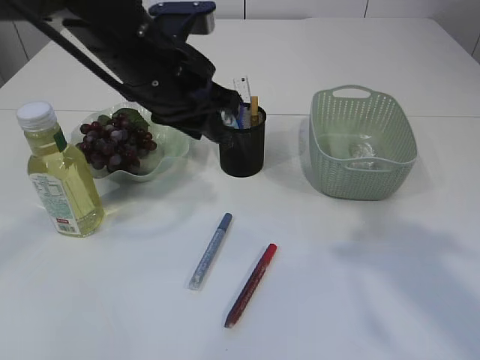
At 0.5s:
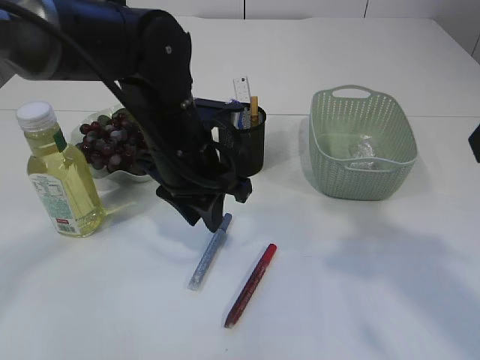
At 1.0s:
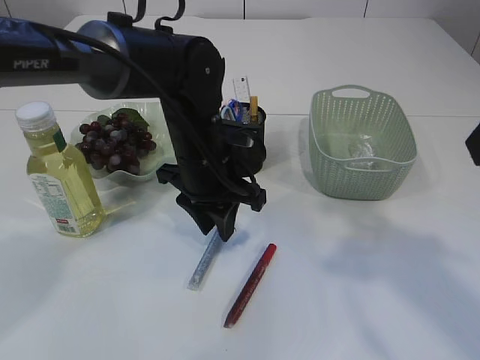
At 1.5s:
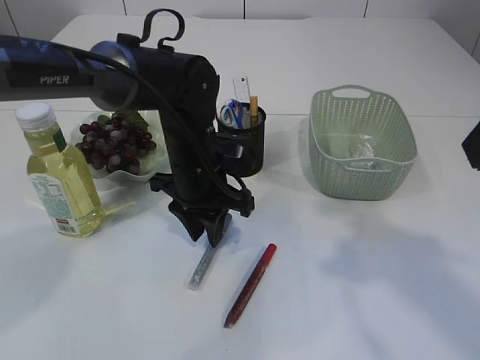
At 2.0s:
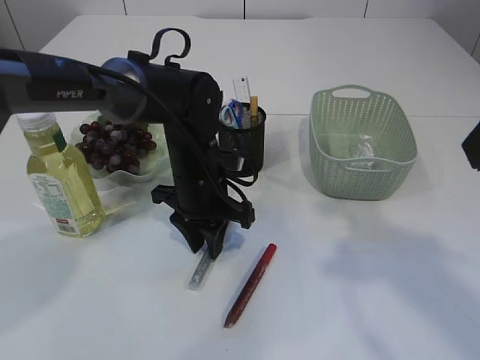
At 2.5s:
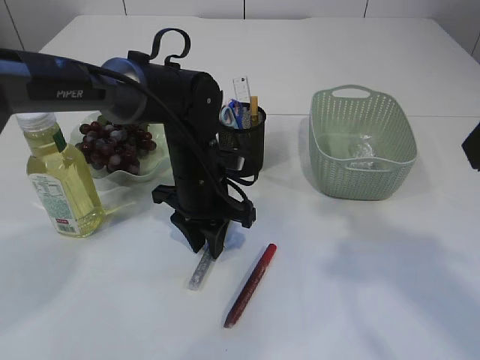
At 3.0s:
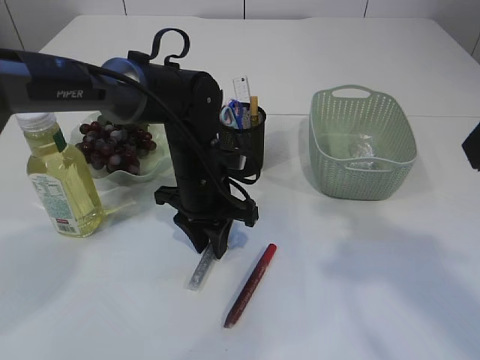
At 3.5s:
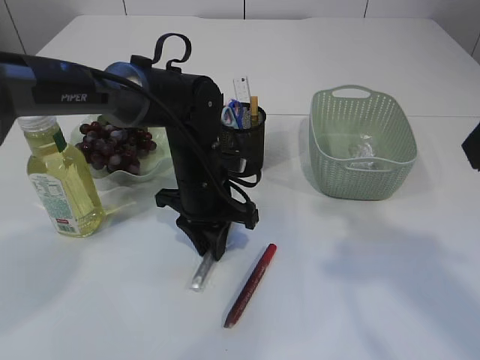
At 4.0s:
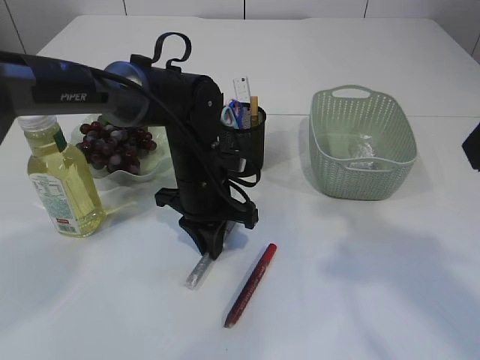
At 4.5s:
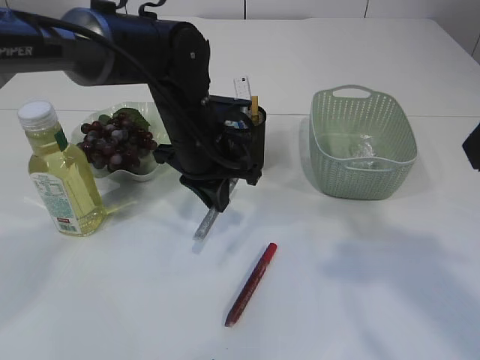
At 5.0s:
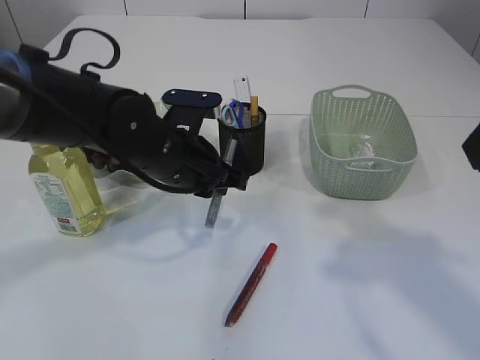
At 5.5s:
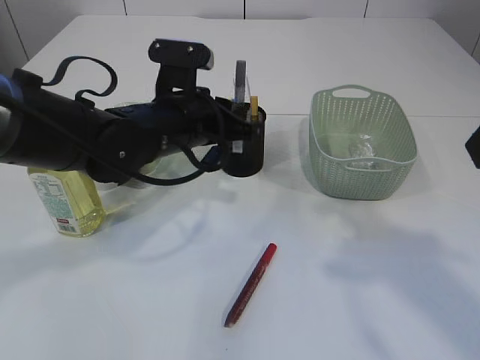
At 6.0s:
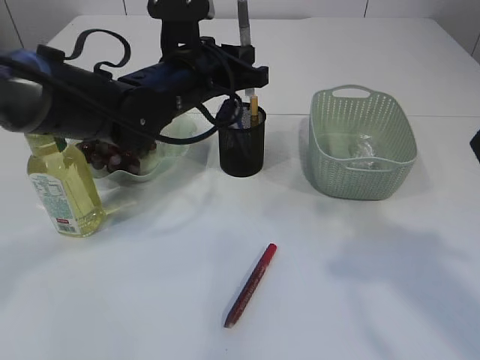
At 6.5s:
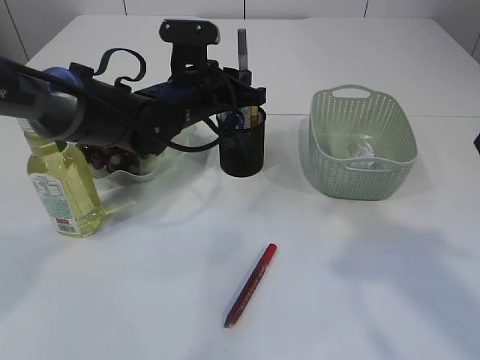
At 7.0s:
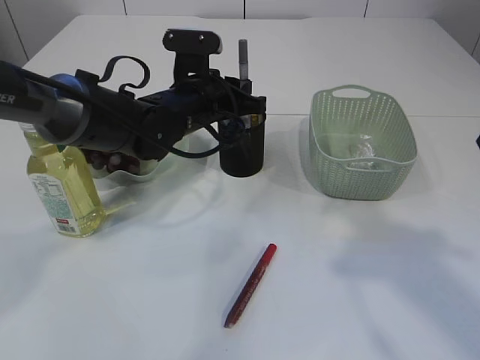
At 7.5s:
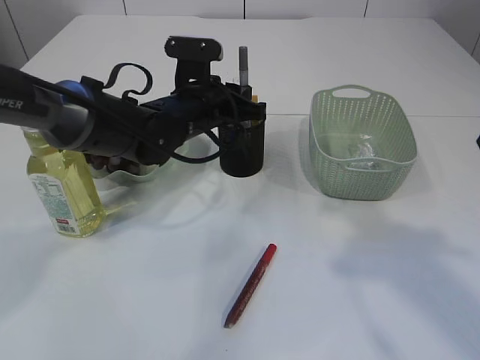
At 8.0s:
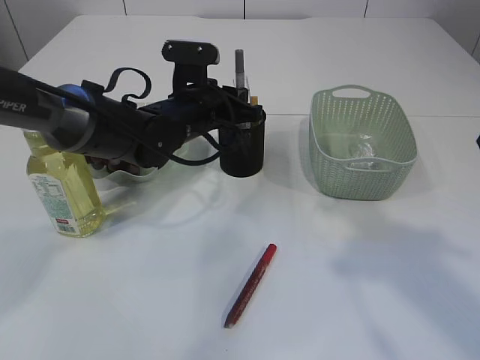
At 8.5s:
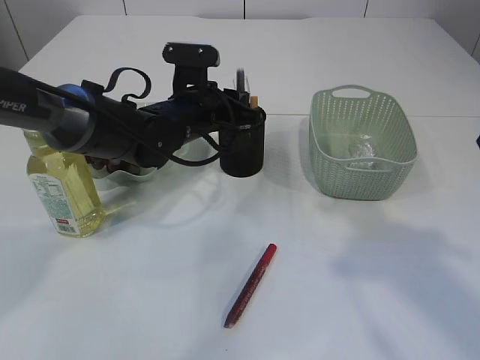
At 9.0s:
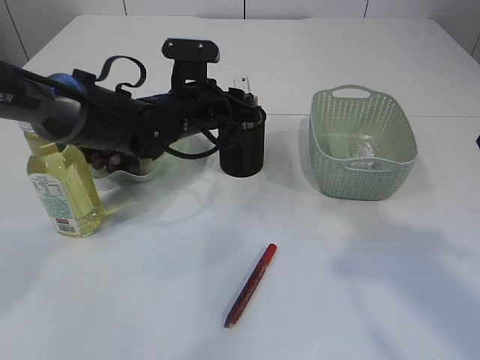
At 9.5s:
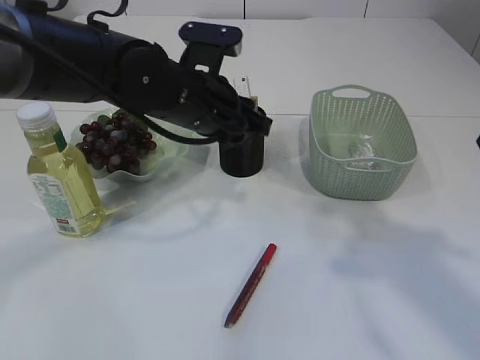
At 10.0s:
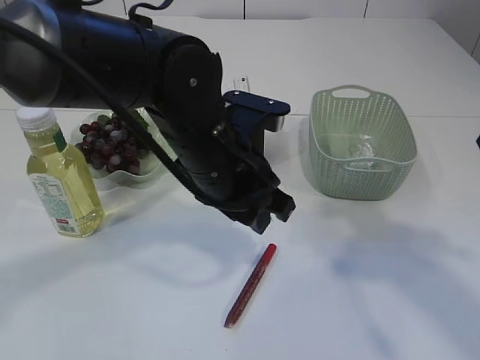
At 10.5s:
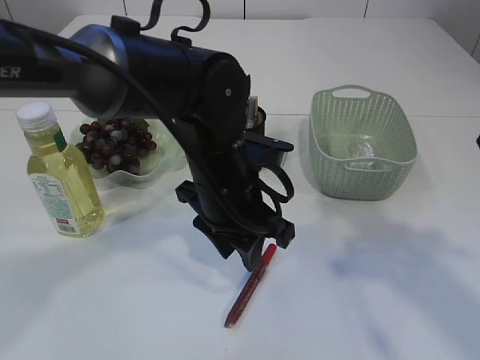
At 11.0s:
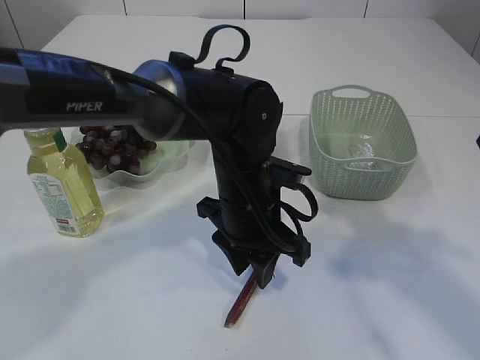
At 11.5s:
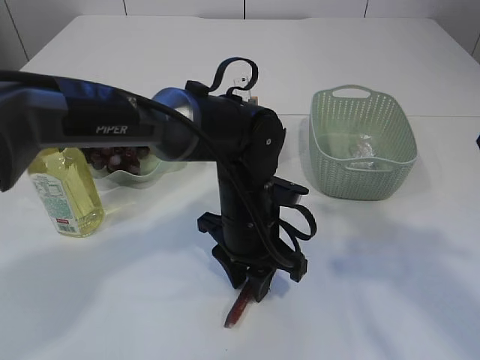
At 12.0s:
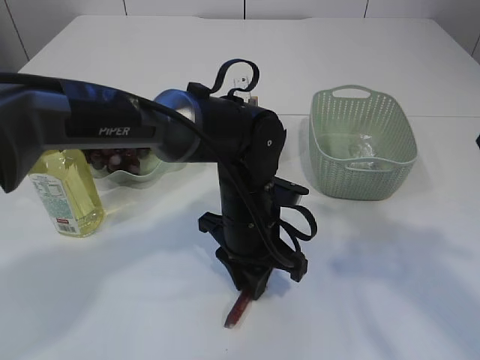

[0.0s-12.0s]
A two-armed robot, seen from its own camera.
Step, 0.0s to 4.0s: pick up the silver glue.
Step, 4.5s to 9.5s: place the silver glue into the pen holder.
0.0s to 2.0s: The left gripper is displaced downward by approximately 15 cm.
2.0s to 4.0s: The left gripper closes up.
4.0s to 6.0s: The left gripper travels upward by some 10 cm.
6.0s to 8.0s: The left gripper heads downward, covering roughly 5 cm.
8.0s to 10.0s: The left gripper heads backward, covering about 15 cm, and opens.
10.0s to 12.0s: The left gripper moves downward, some 10 cm.

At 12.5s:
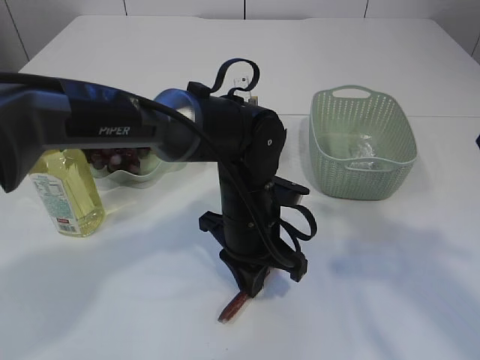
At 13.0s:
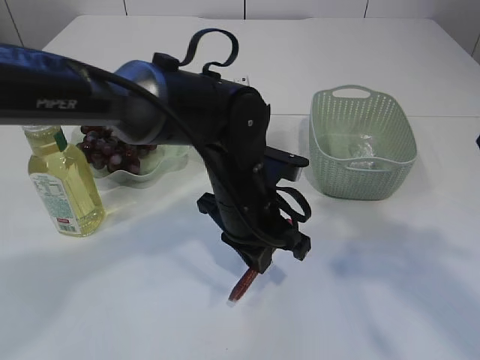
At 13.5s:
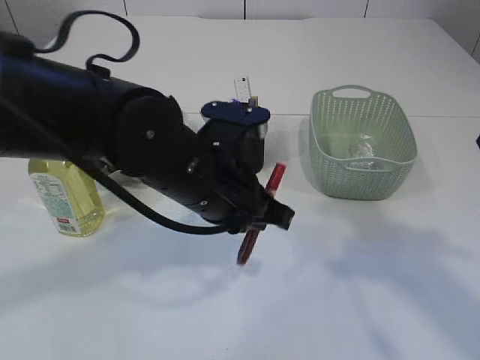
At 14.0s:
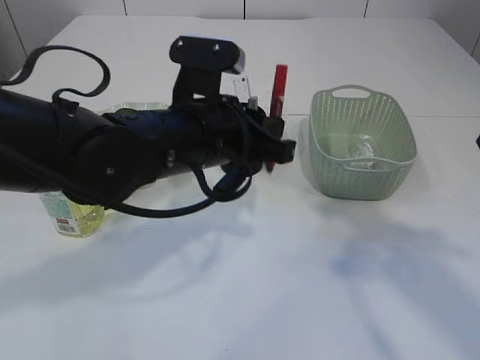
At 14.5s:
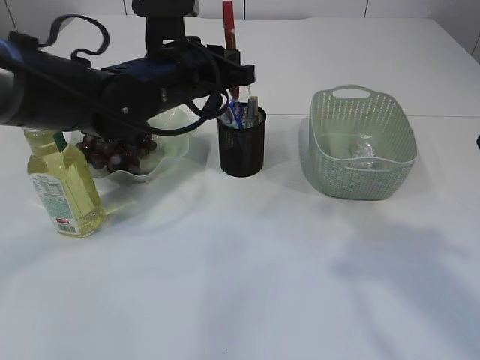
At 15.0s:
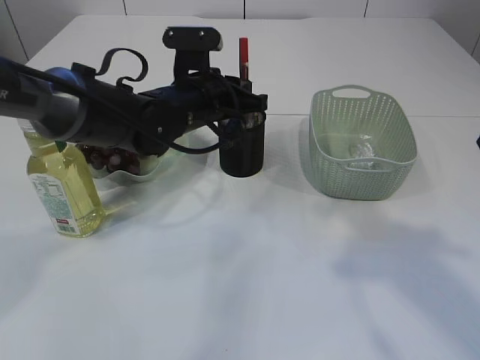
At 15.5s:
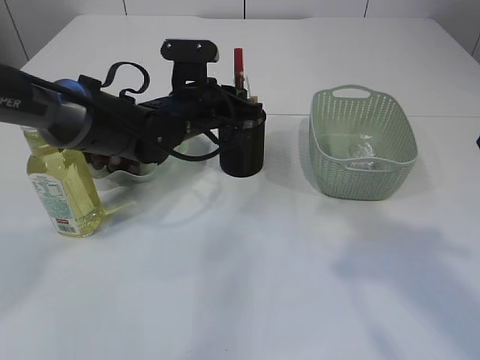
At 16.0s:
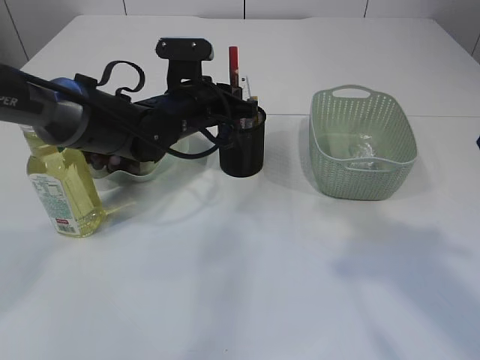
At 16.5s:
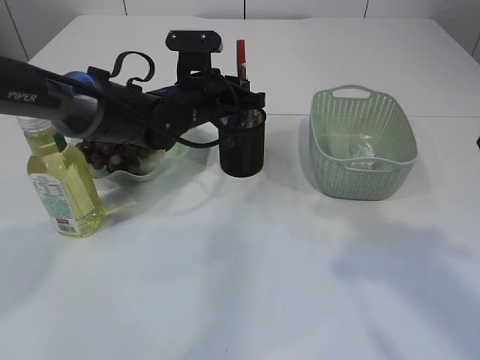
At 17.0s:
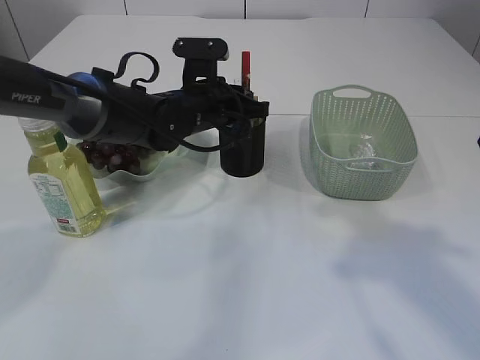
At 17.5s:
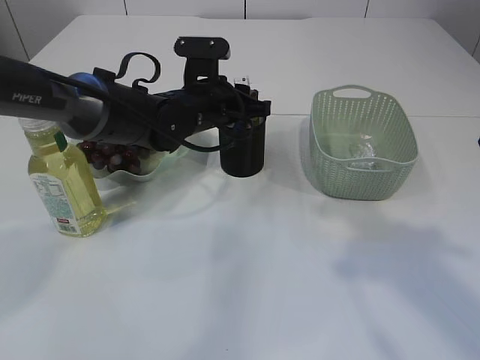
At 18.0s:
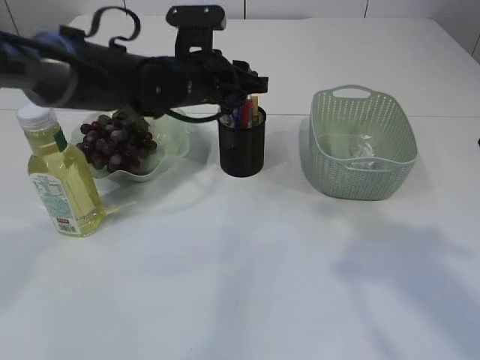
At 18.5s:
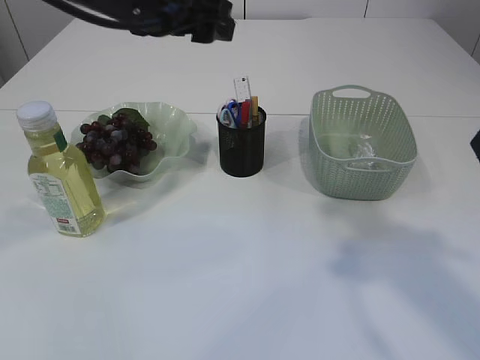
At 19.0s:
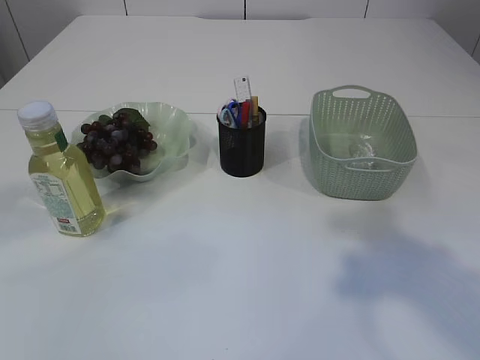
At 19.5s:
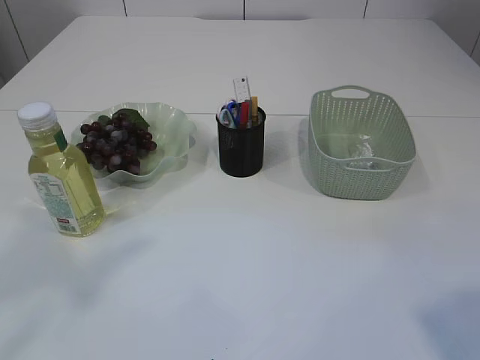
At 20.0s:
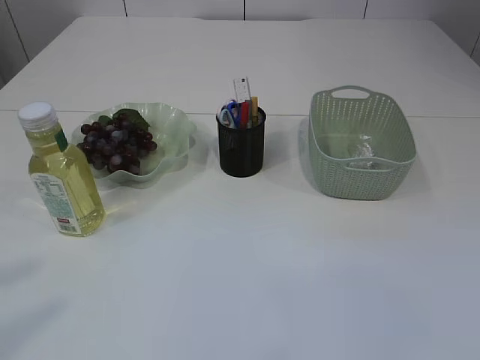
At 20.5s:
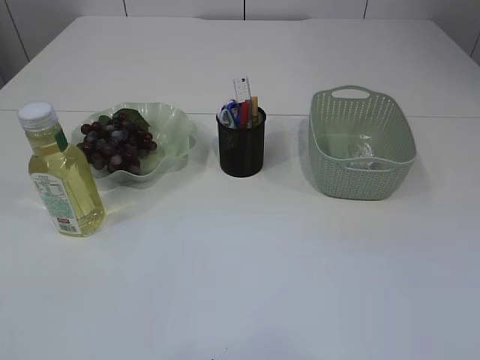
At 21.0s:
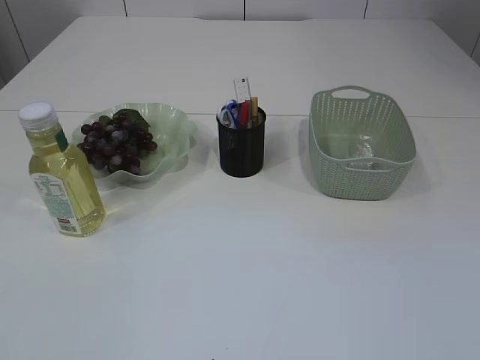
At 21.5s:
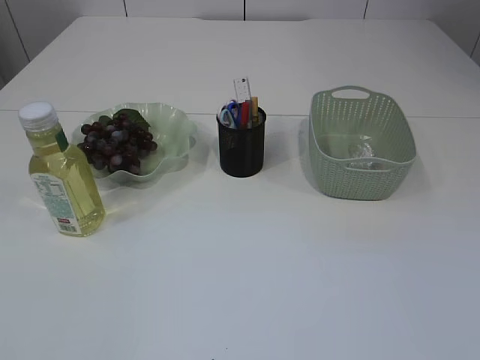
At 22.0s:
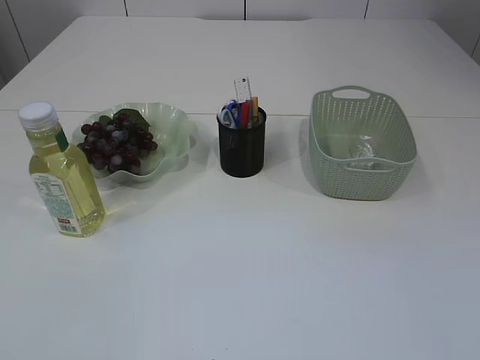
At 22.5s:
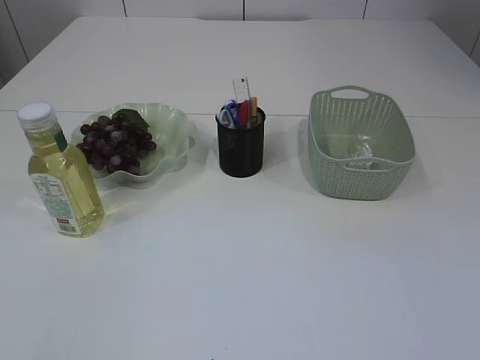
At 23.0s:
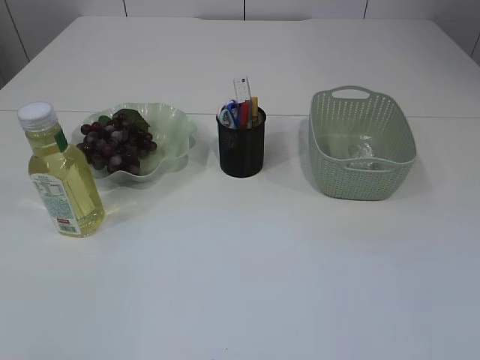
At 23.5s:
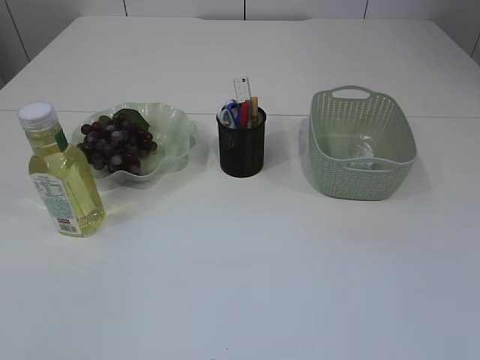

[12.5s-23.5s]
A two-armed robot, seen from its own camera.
Step, 13.5s to 18.0s: place the red glue into the pen holder.
12.5s to 14.5s: The left gripper shifts some 15 cm upward, to the left and forward.
14.5s to 16.0s: The left gripper travels downward by some 5 cm.
16.0s to 18.0s: The left gripper opens.
18.0s to 20.0s: The right gripper shifts approximately 25 cm backward and to the right. The left gripper goes some 40 cm backward, upward and to the left, and opens its fingers.

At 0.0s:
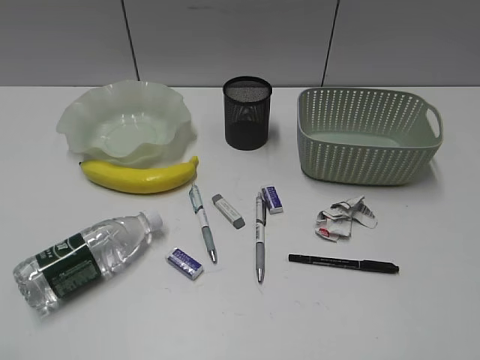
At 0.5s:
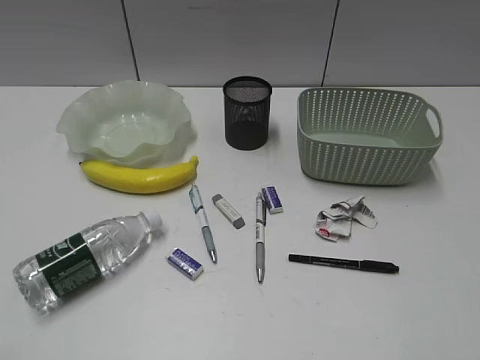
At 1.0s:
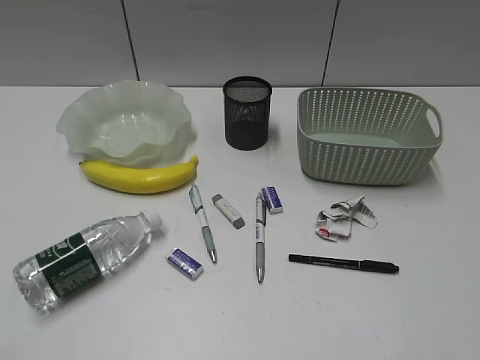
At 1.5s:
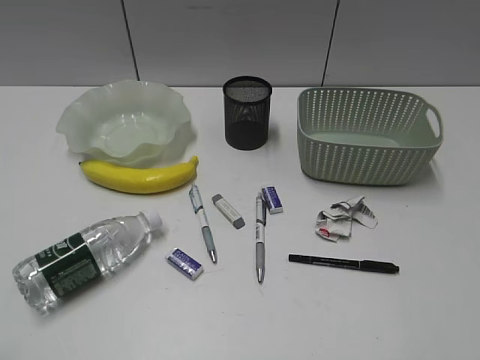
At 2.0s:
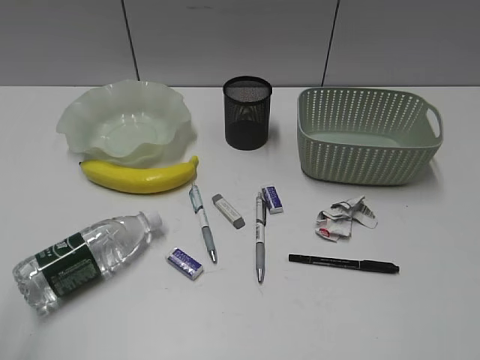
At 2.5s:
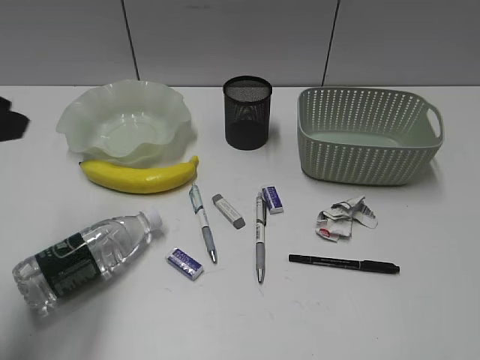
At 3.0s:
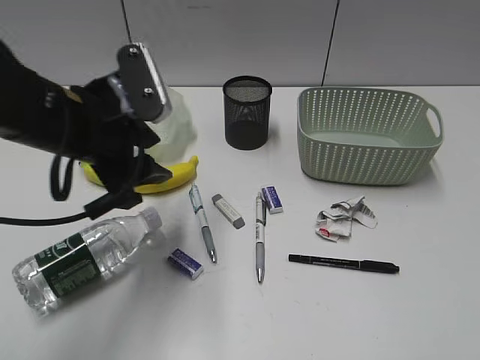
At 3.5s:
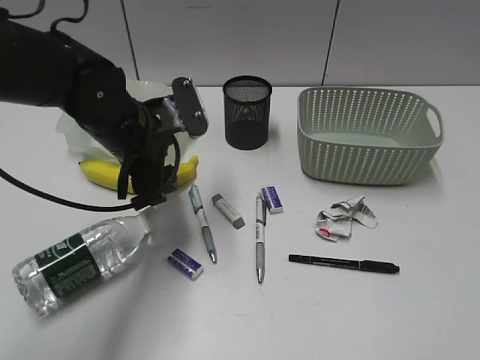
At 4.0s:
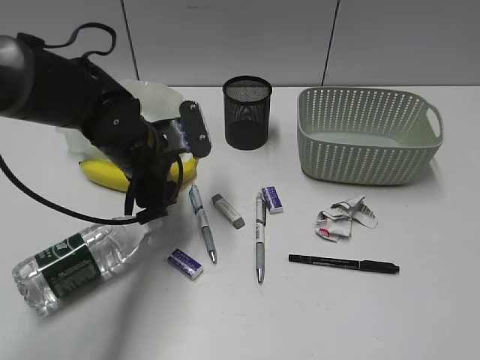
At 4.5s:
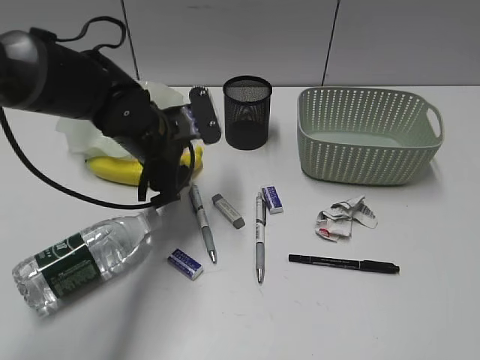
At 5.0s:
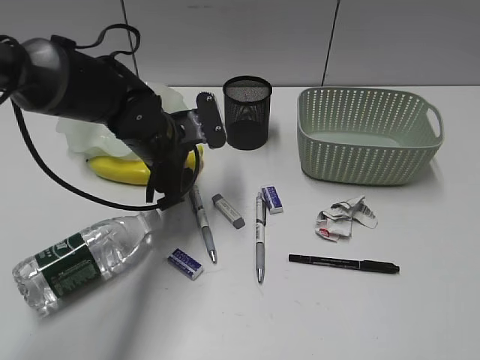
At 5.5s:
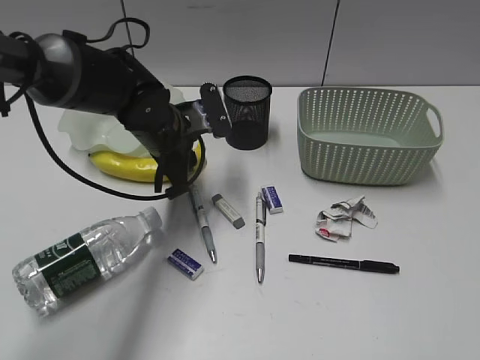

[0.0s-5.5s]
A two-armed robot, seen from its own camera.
2.0s to 3.5s: The left gripper is displaced forward, to the right and downward by about 40 cm, and opens up.
3.5s to 5.5s: The left gripper moves forward, roughly 5 cm, and closes its fingers.
